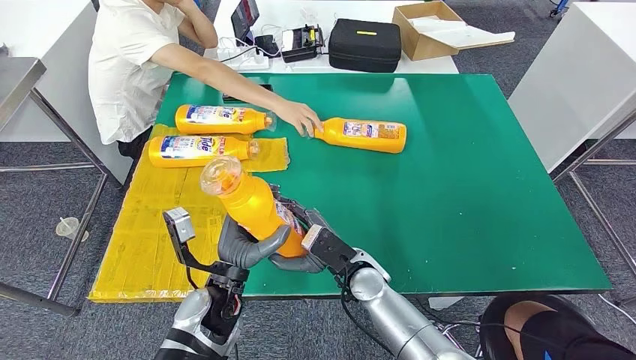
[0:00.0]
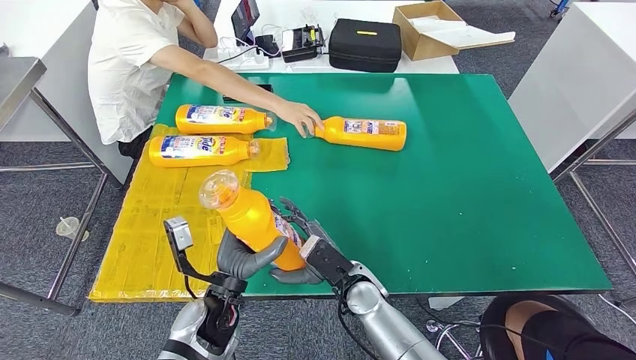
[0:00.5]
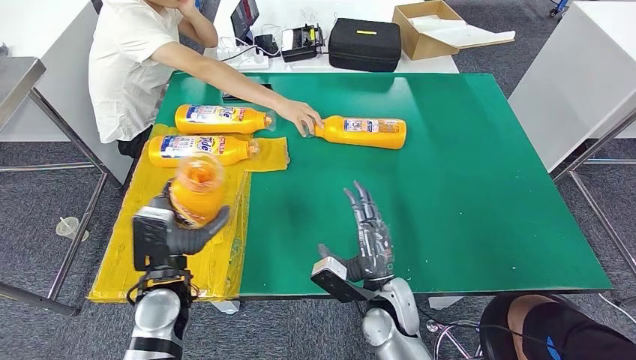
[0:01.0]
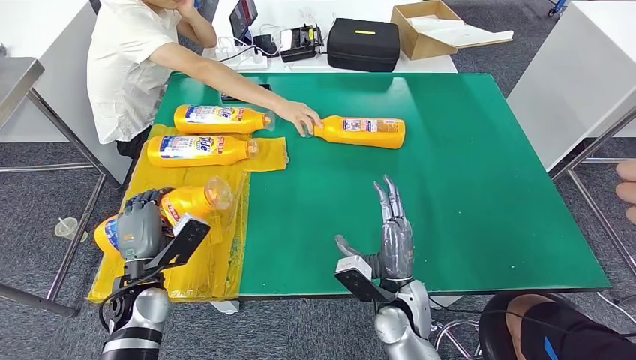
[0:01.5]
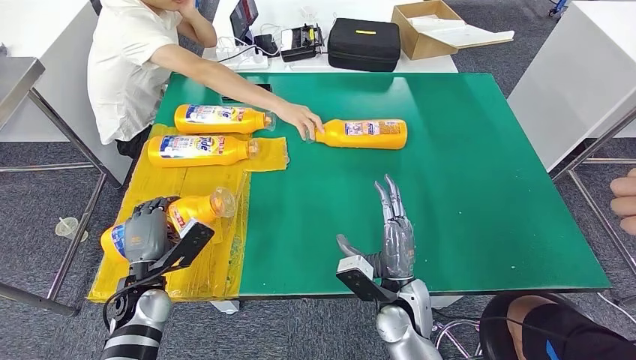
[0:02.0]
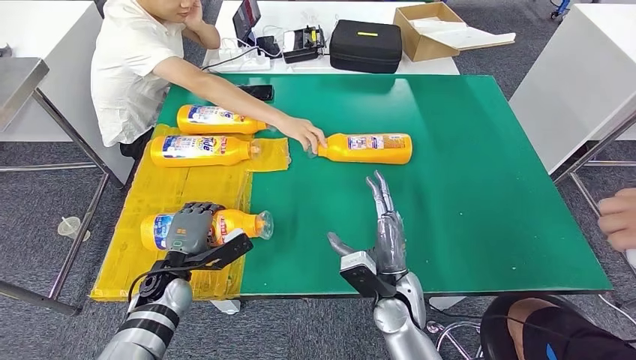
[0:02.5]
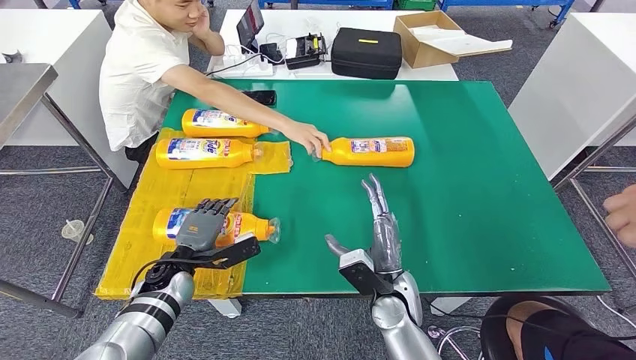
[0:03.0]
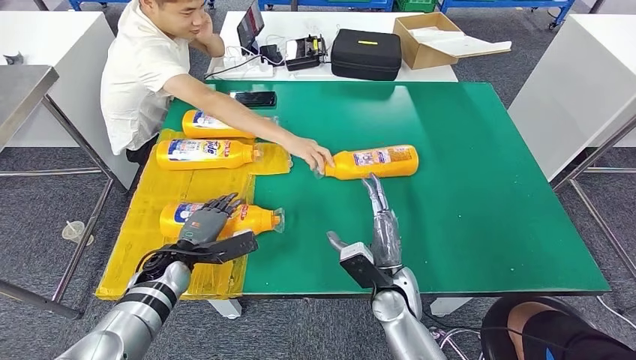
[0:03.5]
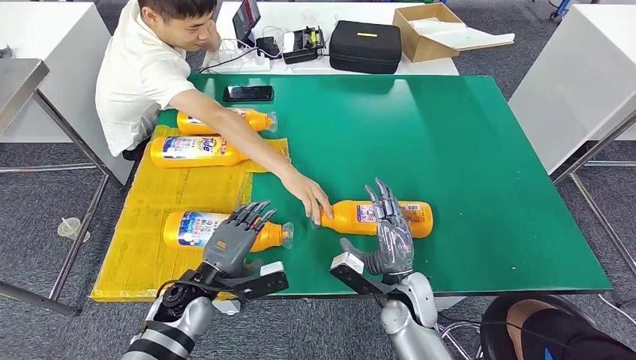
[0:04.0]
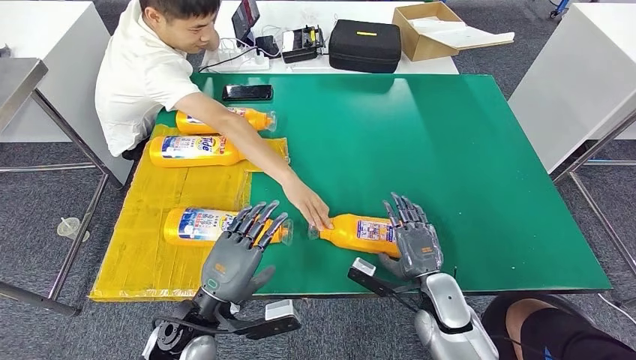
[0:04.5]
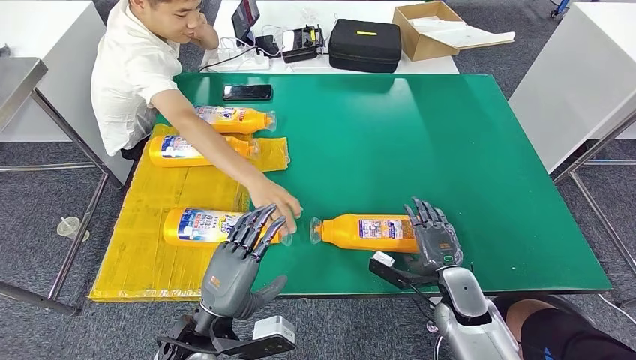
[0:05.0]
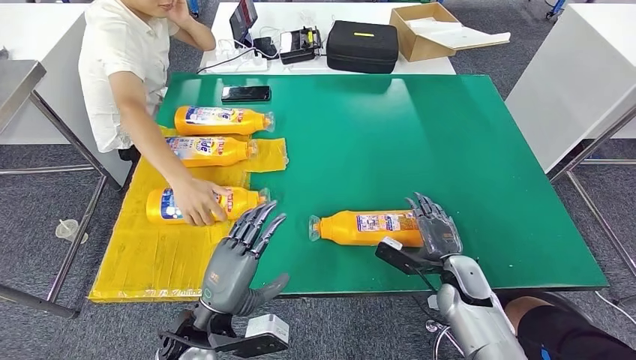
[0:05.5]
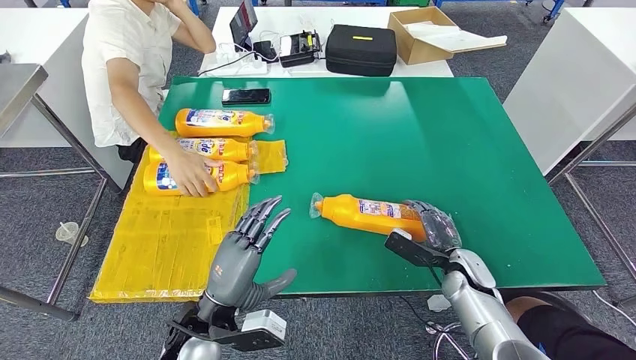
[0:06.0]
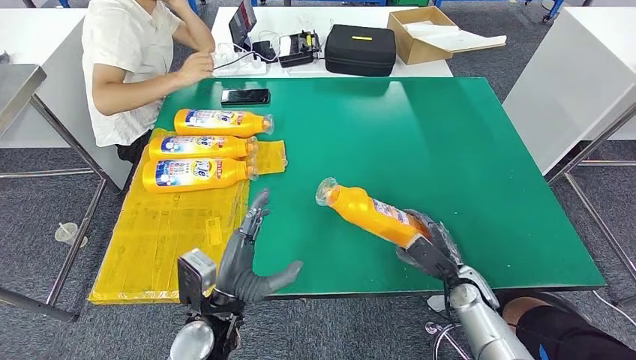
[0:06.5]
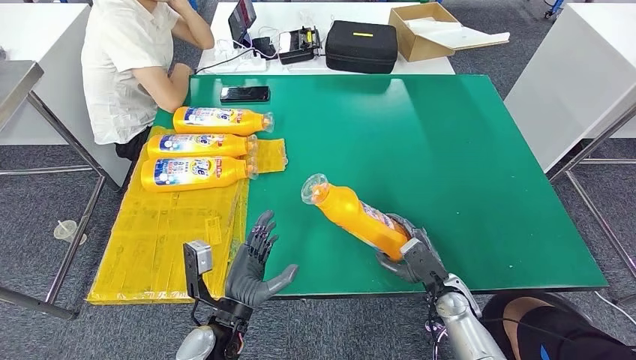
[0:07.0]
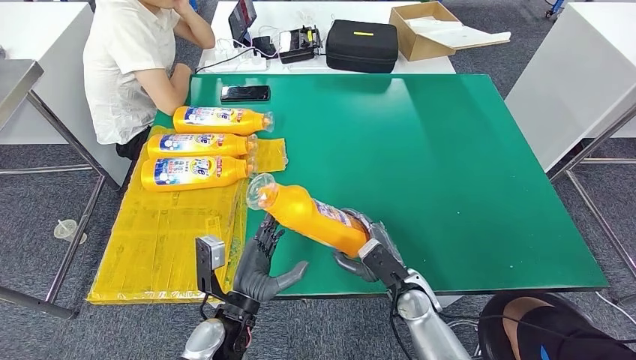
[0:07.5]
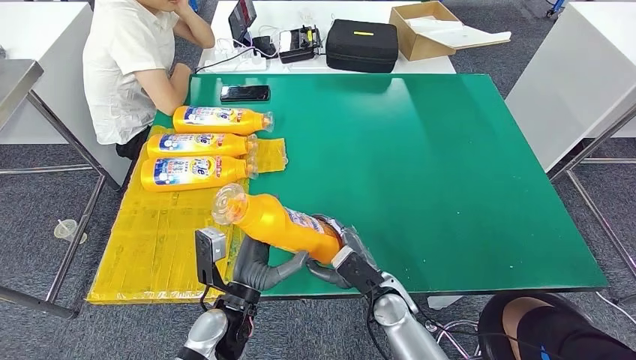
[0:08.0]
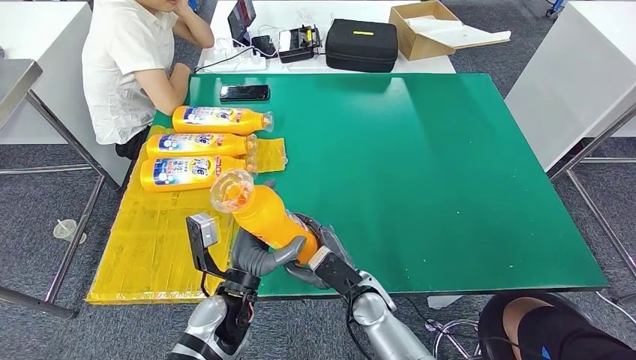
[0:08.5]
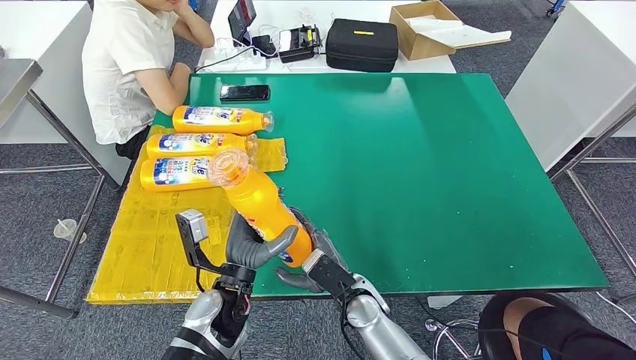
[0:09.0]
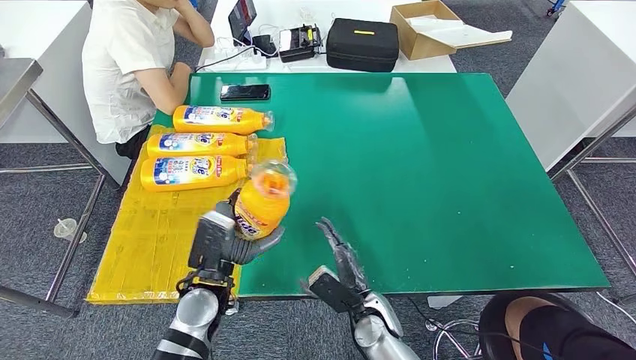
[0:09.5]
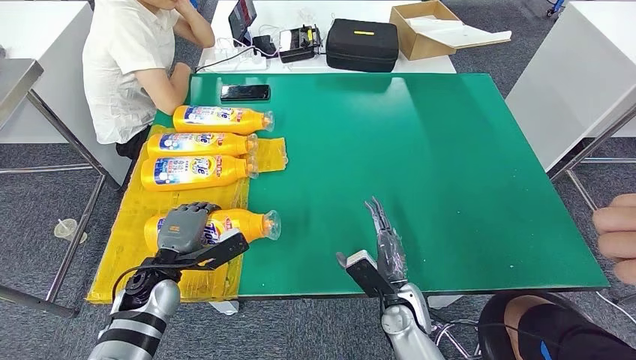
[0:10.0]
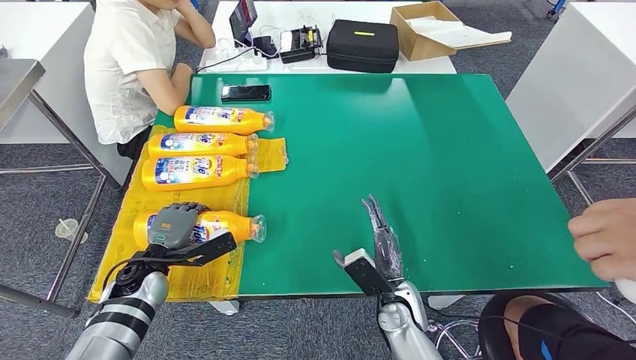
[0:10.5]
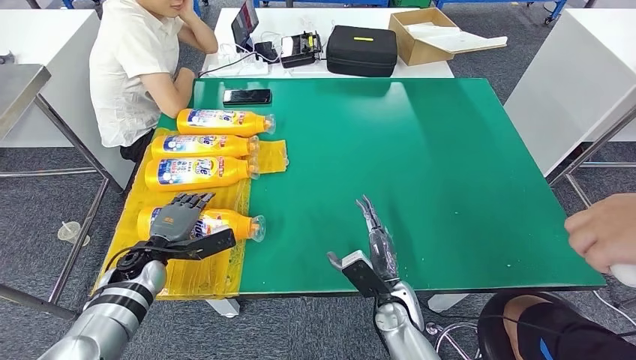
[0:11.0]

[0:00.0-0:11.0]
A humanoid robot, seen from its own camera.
Step, 0:00.0 to 0:03.0: Flip the fast-moving consumer goods bottle to the front side.
Step, 0:03.5 to 0:07.5: Pick up the fast-moving consumer goods bottle from the table.
Step, 0:08.0 to 0:11.0: Flip the fast-moving consumer goods bottle to the front side.
0:00.0 to 0:02.0: The right hand is displaced to the right by approximately 5 cm. Meanwhile the left hand is displaced to the left by about 15 cm.
0:07.5 to 0:09.0: The right hand shifts some 10 cm to the left.
